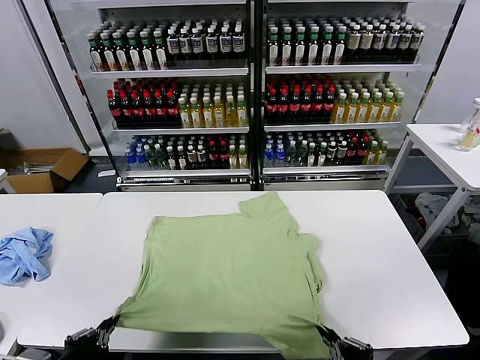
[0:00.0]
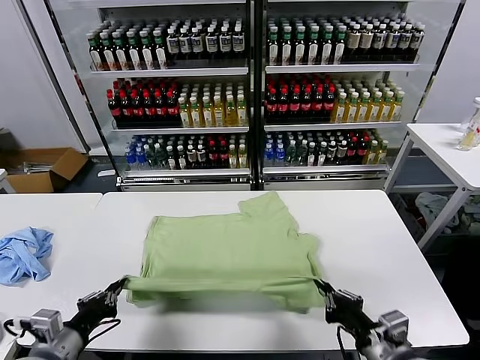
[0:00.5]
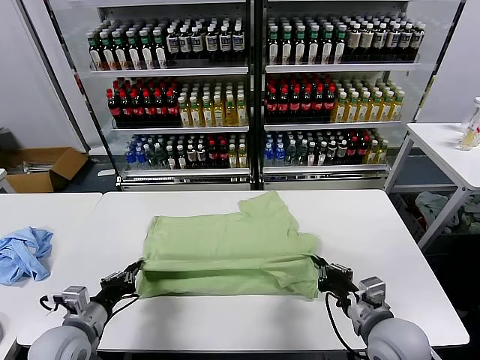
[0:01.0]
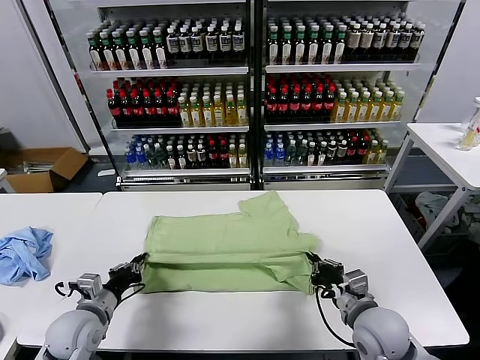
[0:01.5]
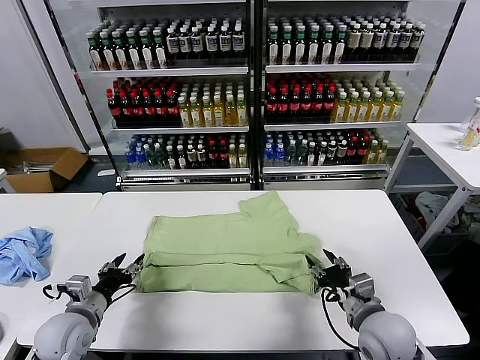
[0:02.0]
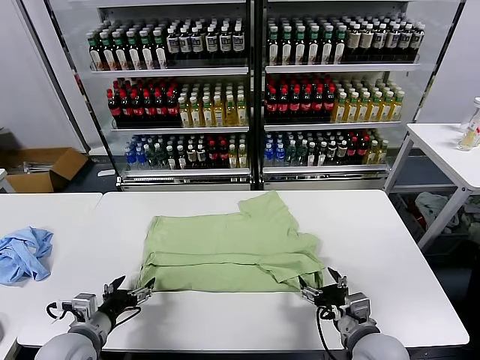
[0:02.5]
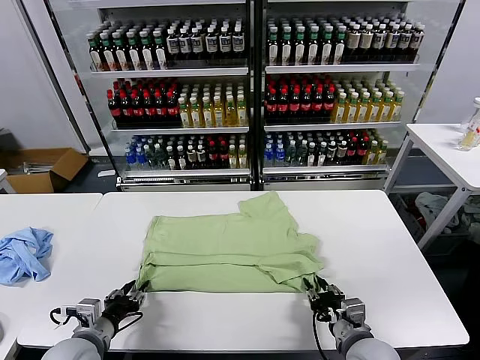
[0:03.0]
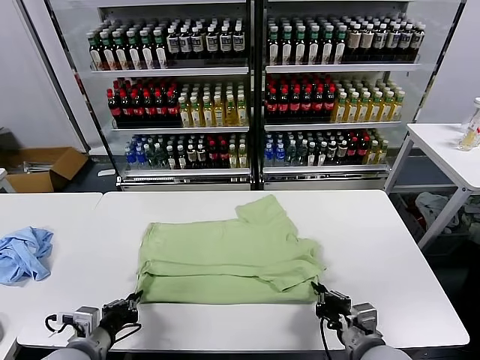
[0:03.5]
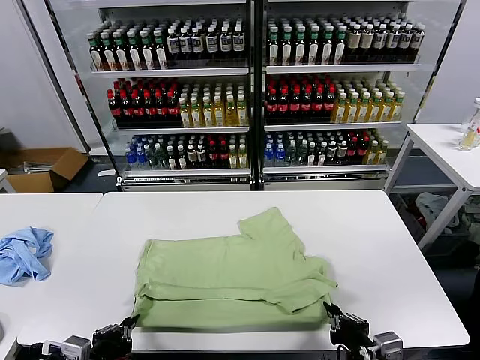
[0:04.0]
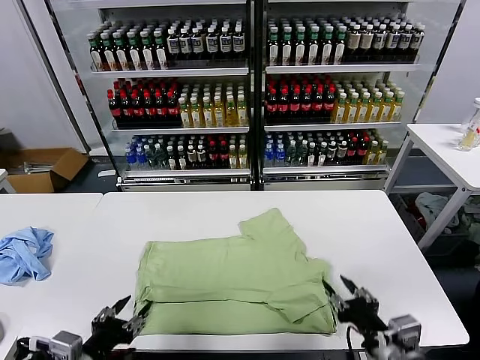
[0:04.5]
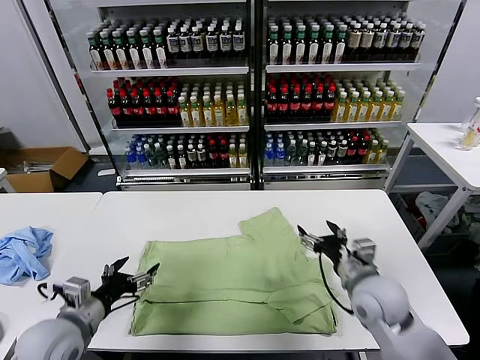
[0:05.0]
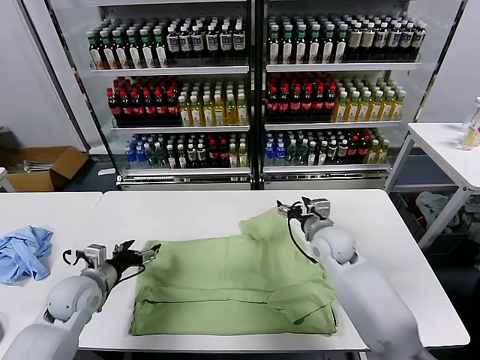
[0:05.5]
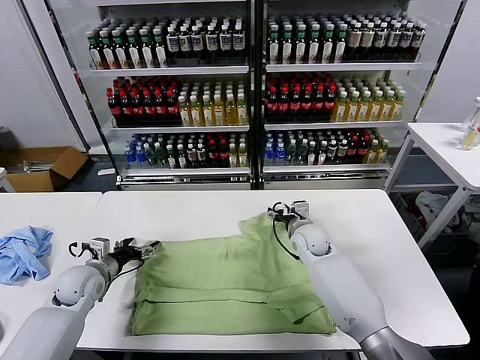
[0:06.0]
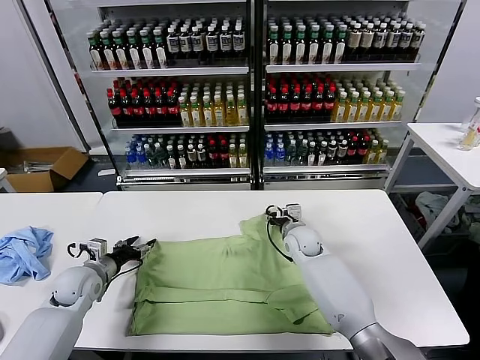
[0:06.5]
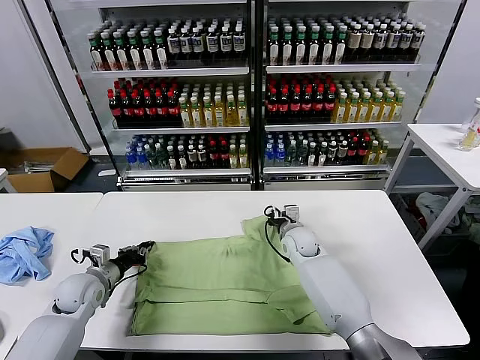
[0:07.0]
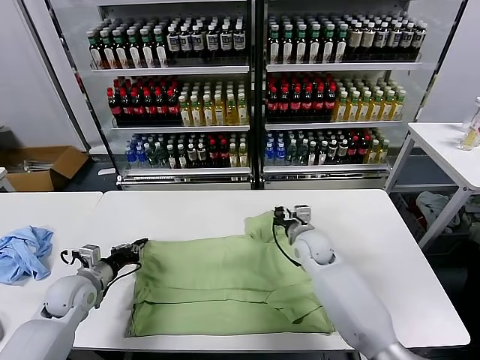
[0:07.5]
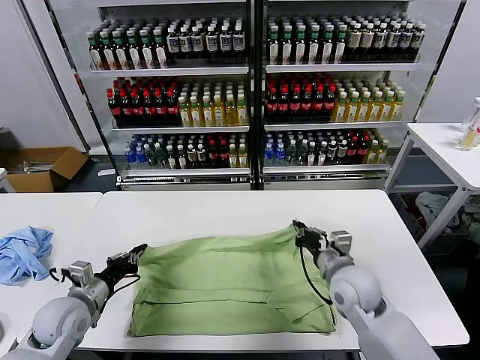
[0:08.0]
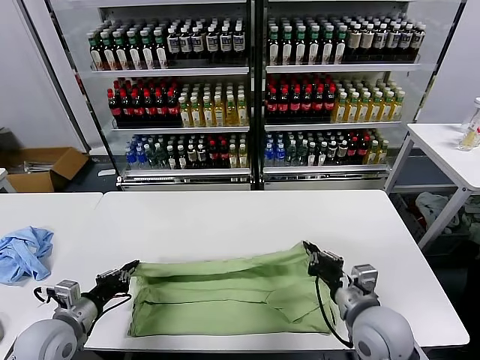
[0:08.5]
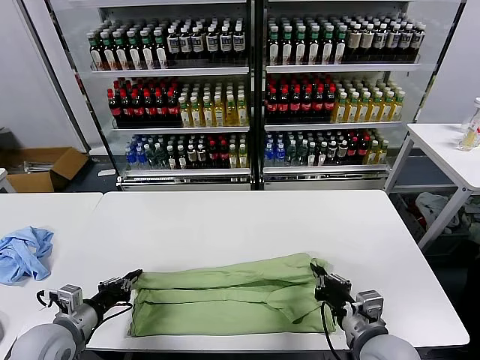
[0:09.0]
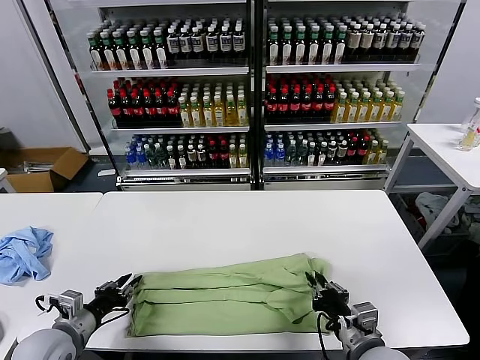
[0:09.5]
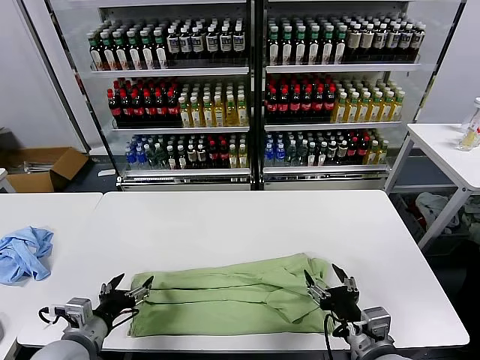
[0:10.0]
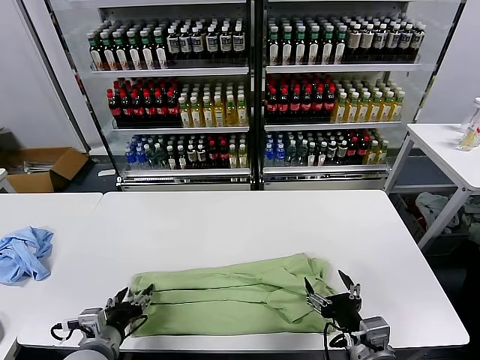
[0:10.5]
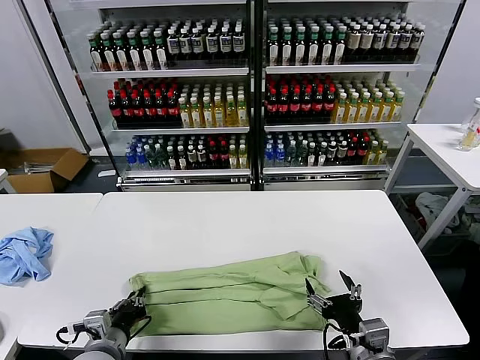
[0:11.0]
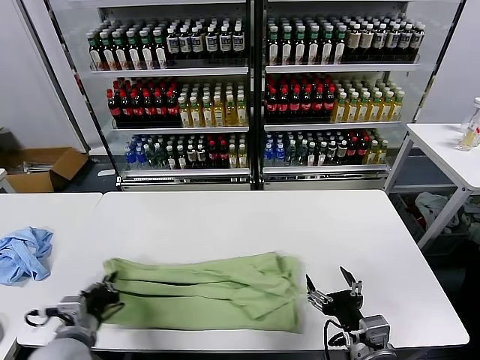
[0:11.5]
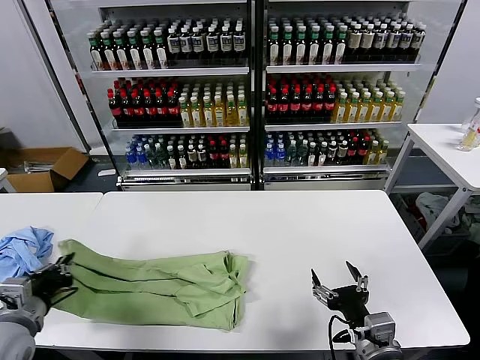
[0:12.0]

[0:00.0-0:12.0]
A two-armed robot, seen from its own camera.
Task of the whole recording: fold and organize the clothes.
Step, 0:00.0 to 0:01.5: use both grippers to drag the lower edge of the fabric forward and fold it over the upper edge.
Step, 0:02.0 to 0:04.0: Drag the clothes downward with both gripper.
Step, 0:04.5 to 0:07.0: use both grippers simultaneously to clamp the upper edge of the clothing fabric.
Step, 0:07.5 to 0:09.5: use both grippers to drag the upper edge of the fabric backward and fold it over the lower edge.
Step, 0:10.0 to 0:11.0: use the left gripper to clamp the left edge of the fabric.
0:00.0 to 0:02.0: Both grippers travel together forward and downward, approximately 15 cm. The right gripper opens. Meanwhile the left gripper opens.
0:02.0 to 0:04.0: Both grippers travel together backward, approximately 10 cm. The right gripper closes its fingers. Meanwhile the left gripper closes up.
0:04.0 to 0:06.0: The grippers both shift forward by approximately 30 cm. The left gripper opens up; the right gripper opens up.
0:06.0 to 0:08.0: The right gripper shifts some 20 cm backward, and closes, while the left gripper goes some 10 cm backward, and closes up.
0:08.0 to 0:10.0: The right gripper travels backward by about 15 cm, and opens its fingers. The left gripper goes about 10 cm backward, and opens its fingers.
0:10.0 to 0:12.0: The left gripper shifts about 10 cm to the left and upward, and closes up.

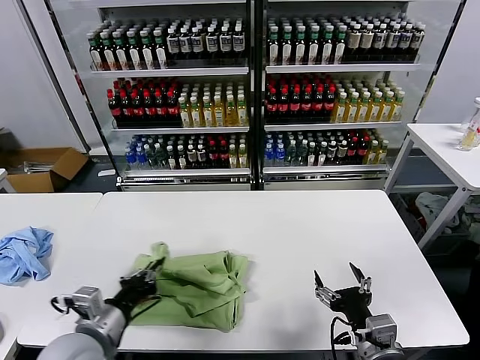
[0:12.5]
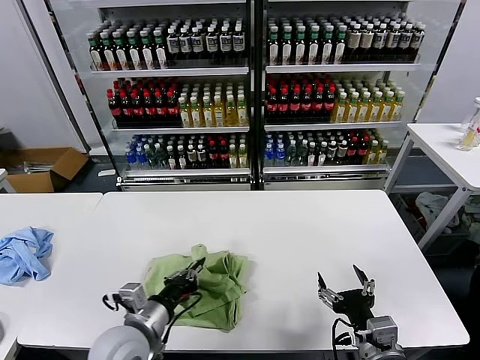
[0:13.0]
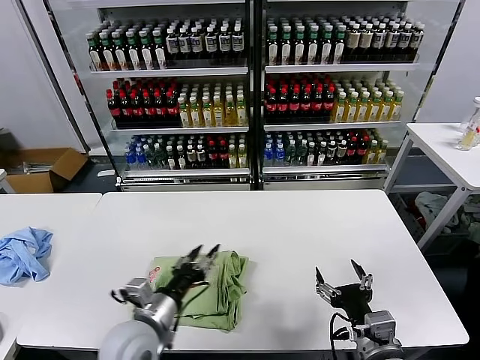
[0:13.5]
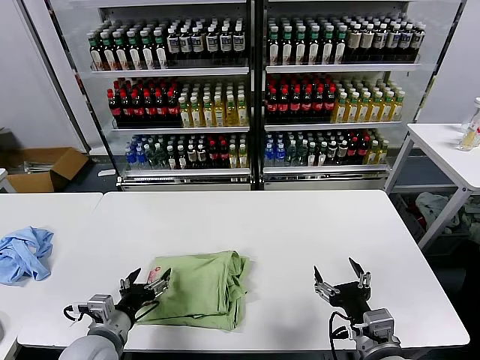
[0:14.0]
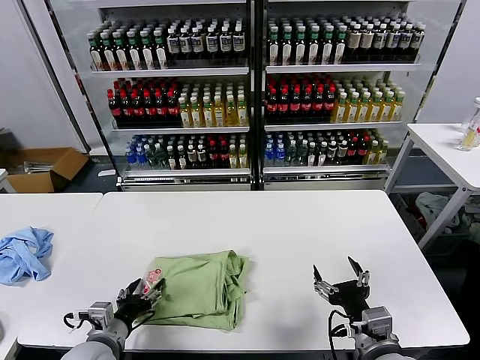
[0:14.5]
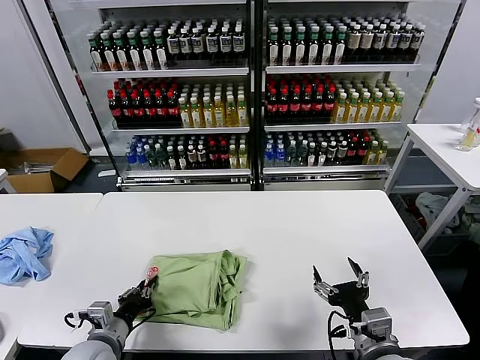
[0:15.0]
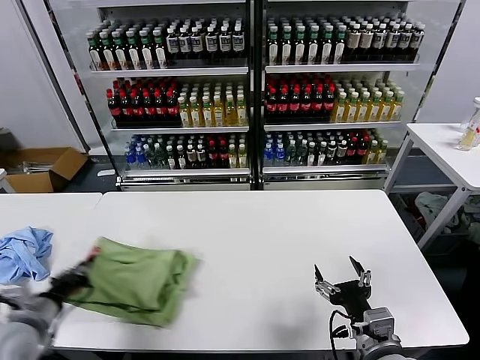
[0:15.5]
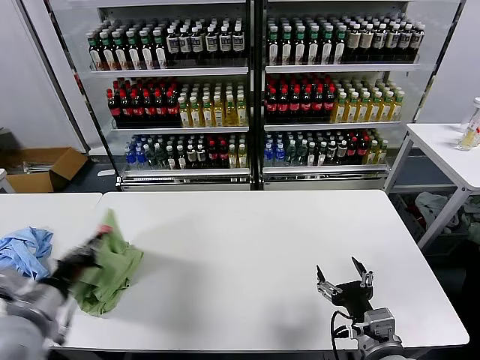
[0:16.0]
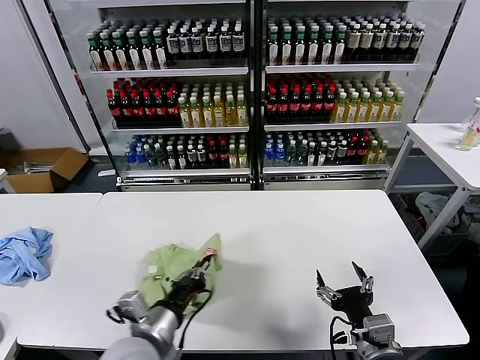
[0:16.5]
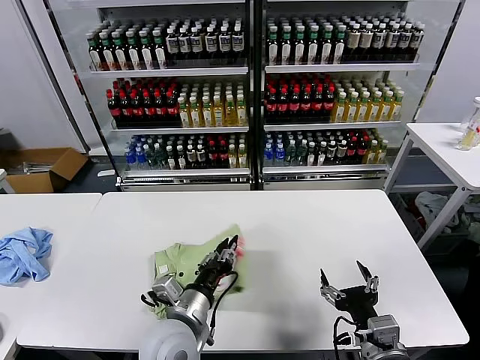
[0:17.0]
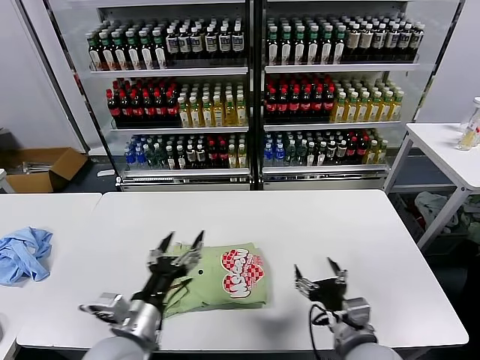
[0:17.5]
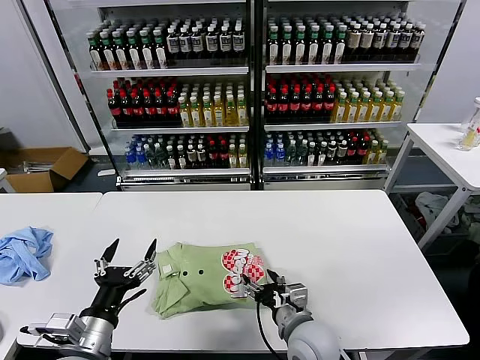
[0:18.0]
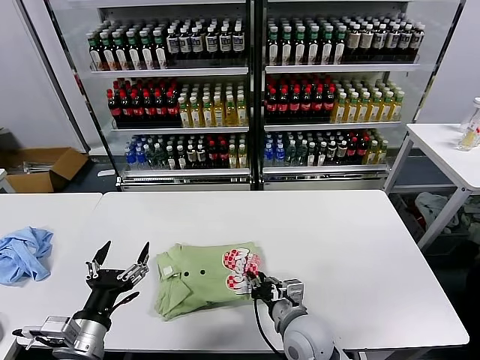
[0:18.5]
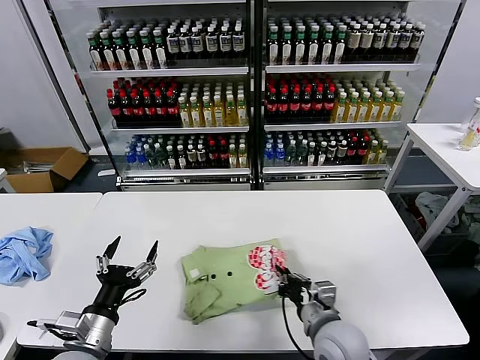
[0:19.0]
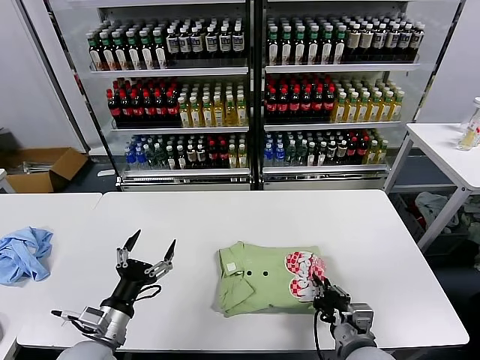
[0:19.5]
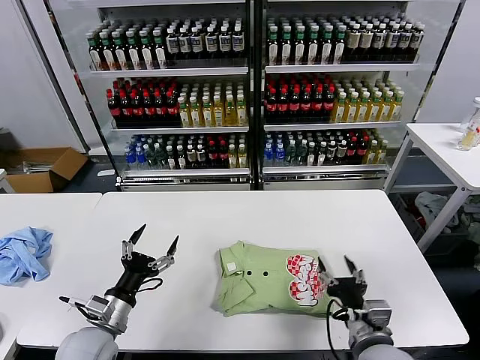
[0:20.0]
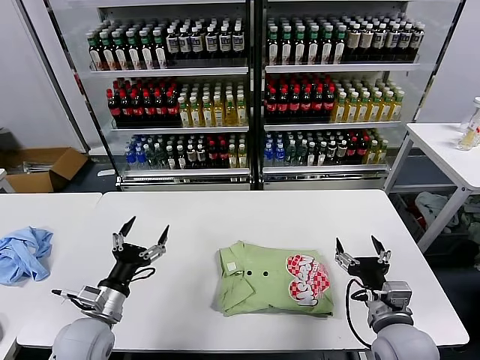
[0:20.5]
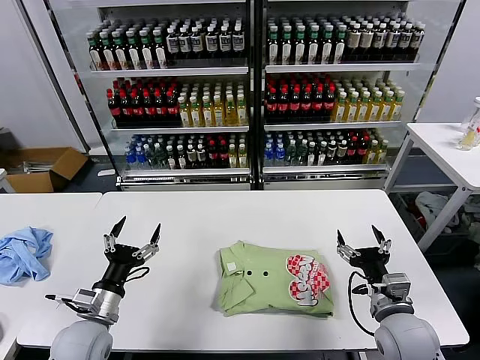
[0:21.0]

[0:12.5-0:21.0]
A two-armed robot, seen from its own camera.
Task of the whole recording: fold and organize the clothes.
Step, 0:14.0 to 0:17.0: Flip the folded clothes over with left gripper.
Step, 0:17.5 to 0:19.5: Drag the clothes to the center of the table.
0:12.5 to 0:14.5: The left gripper shifts roughly 10 cm downward, travels to the right and back again, some 10 cm each way, and opens its fingers.
0:14.5 to 0:16.5: The left gripper shifts some 15 cm to the right and upward, and closes.
0:16.5 to 0:19.0: The left gripper shifts about 10 cm to the left, and opens up, while the right gripper heads forward and to the left, covering approximately 10 cm, and closes up.
0:19.0 to 0:21.0: The left gripper is displaced forward by about 5 cm, while the right gripper heads to the right, covering approximately 10 cm, and opens its fingers.
